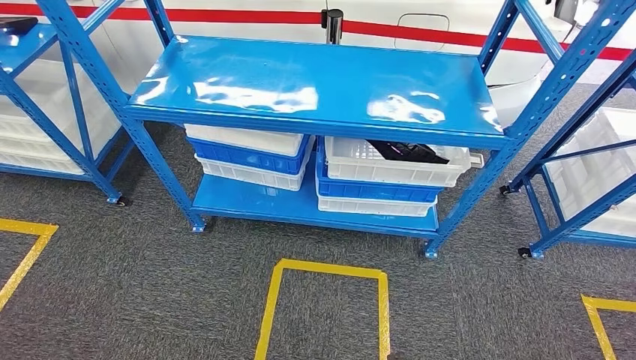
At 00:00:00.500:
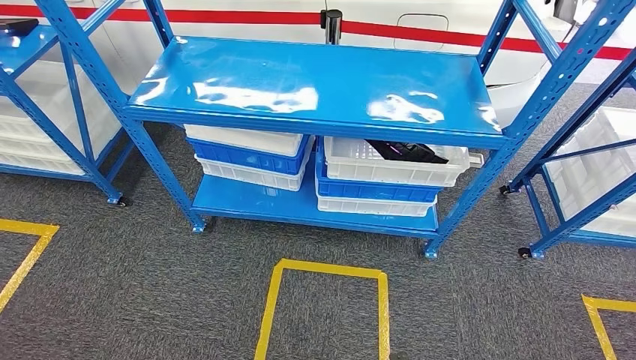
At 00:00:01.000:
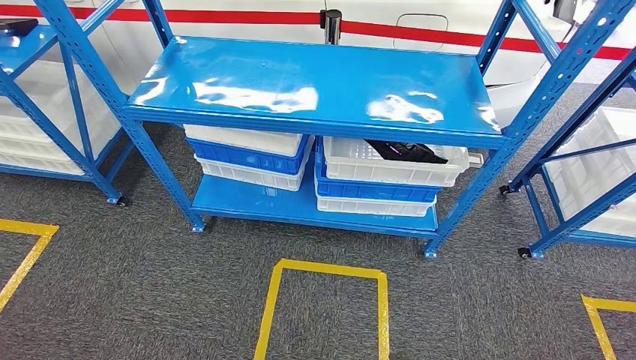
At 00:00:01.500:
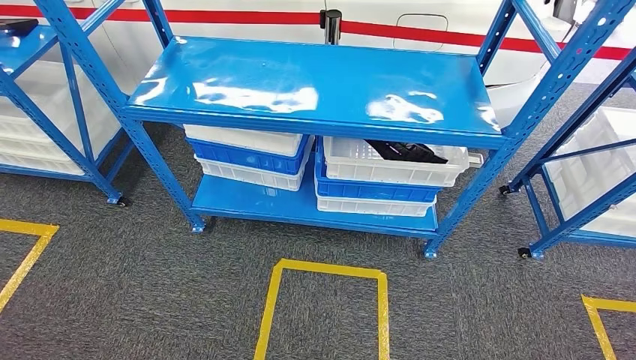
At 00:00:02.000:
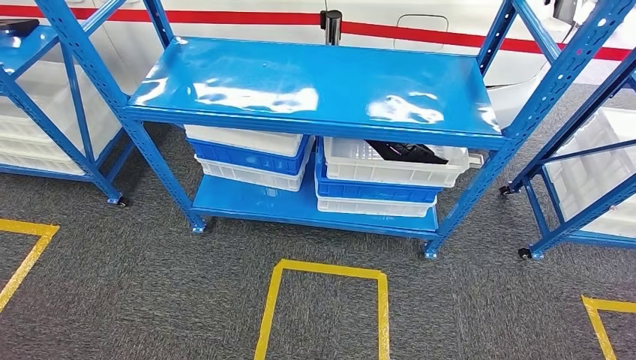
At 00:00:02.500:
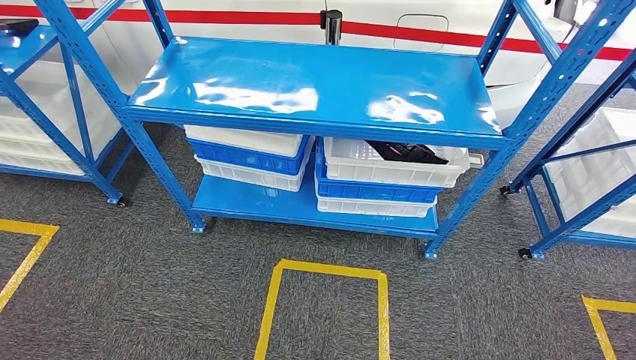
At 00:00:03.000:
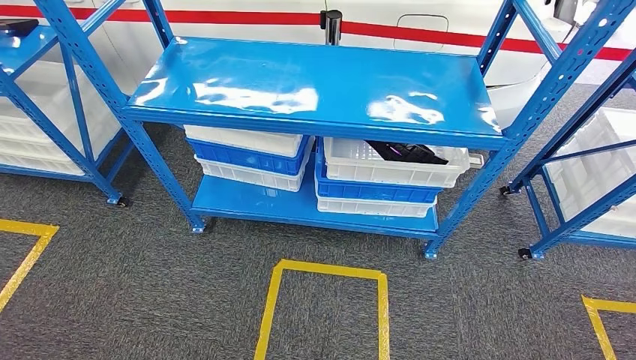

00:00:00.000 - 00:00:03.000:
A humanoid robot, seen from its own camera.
Step, 00:00:00.000 - 00:00:03.000: Move to the initial position of the shelf.
00:00:00.000 - 00:00:01.500: There are only small adjustments of the hands.
00:00:01.500 - 00:00:03.000: The right hand goes approximately 5 cm backward.

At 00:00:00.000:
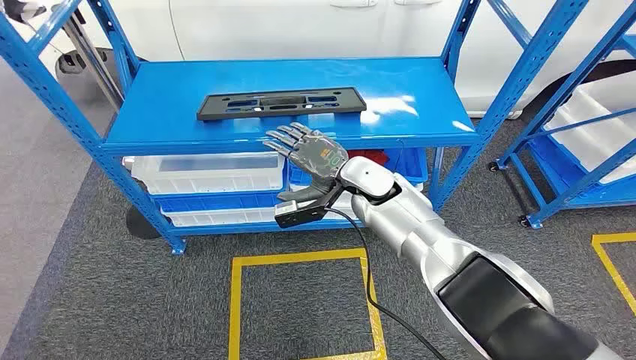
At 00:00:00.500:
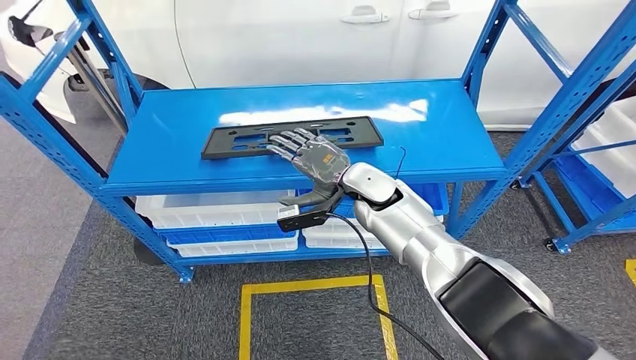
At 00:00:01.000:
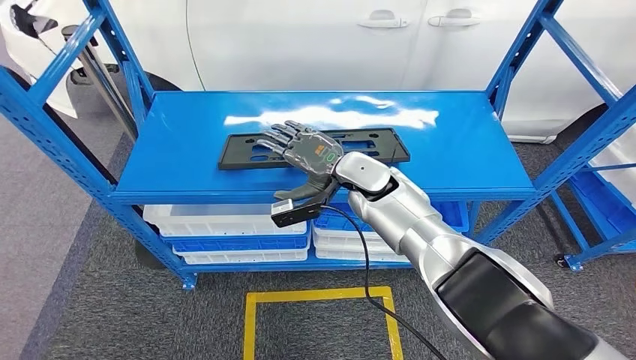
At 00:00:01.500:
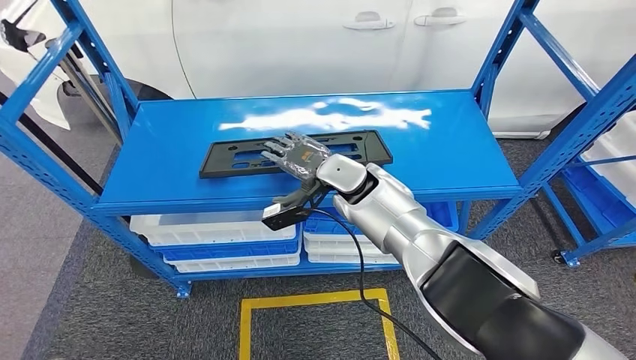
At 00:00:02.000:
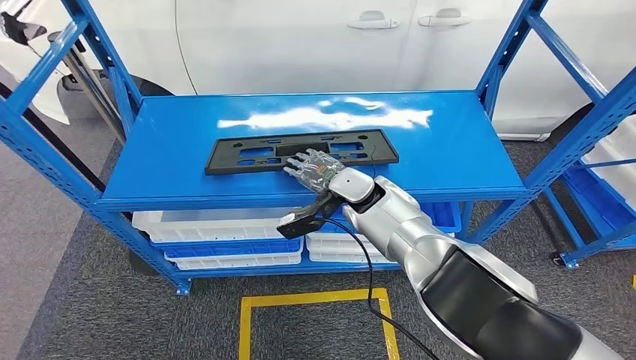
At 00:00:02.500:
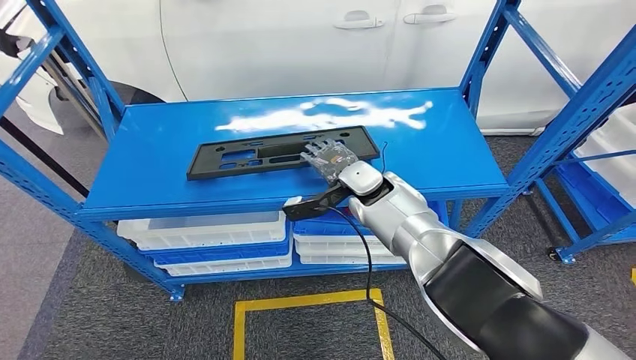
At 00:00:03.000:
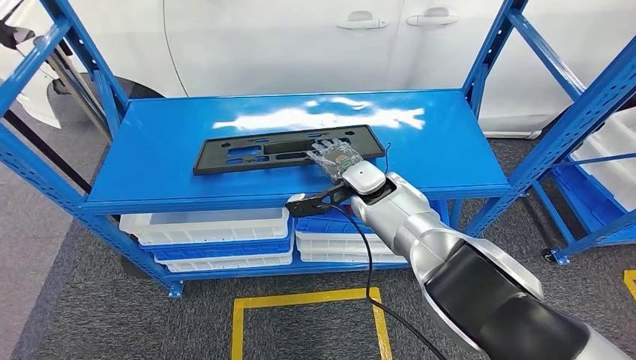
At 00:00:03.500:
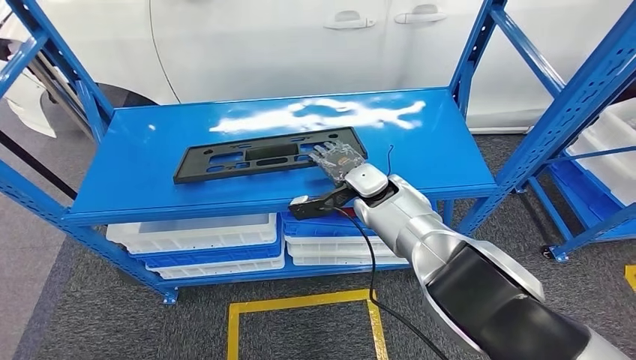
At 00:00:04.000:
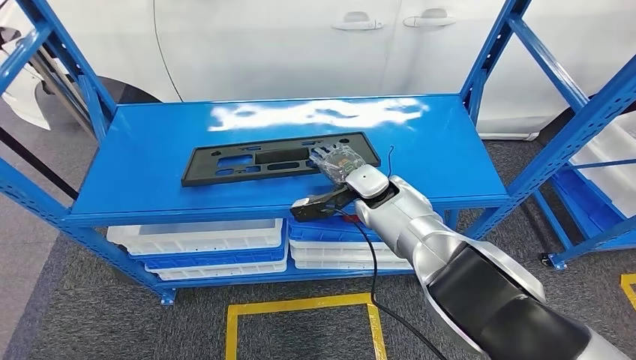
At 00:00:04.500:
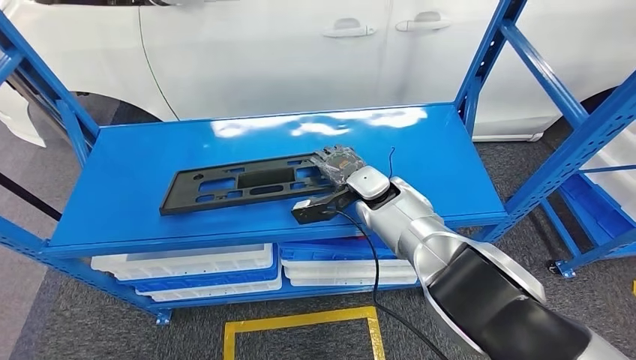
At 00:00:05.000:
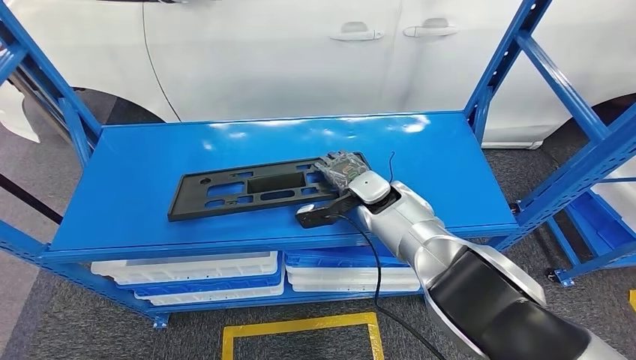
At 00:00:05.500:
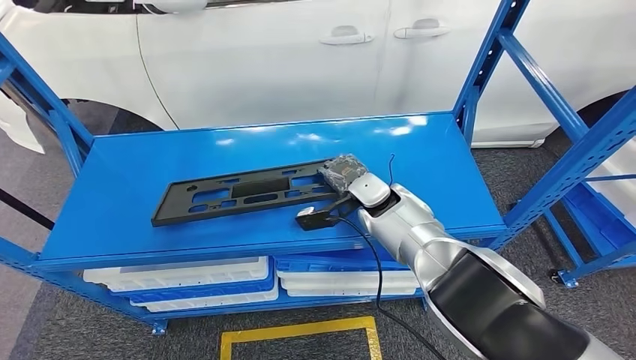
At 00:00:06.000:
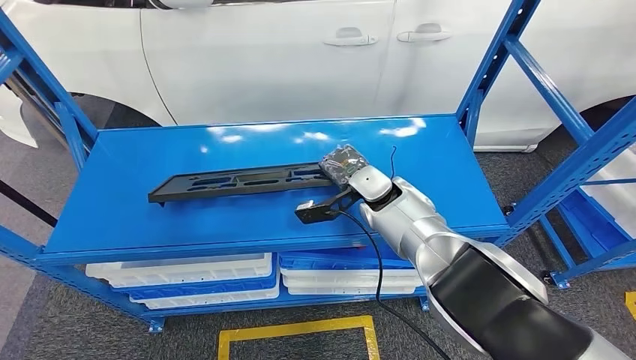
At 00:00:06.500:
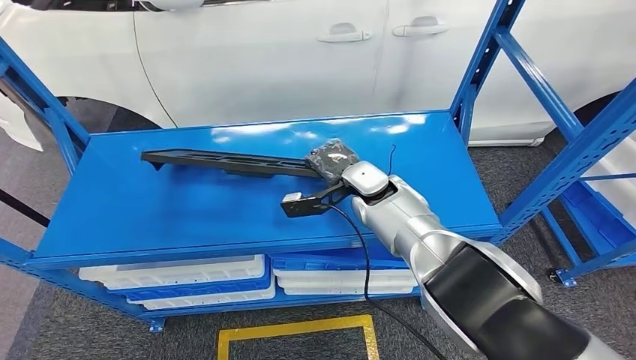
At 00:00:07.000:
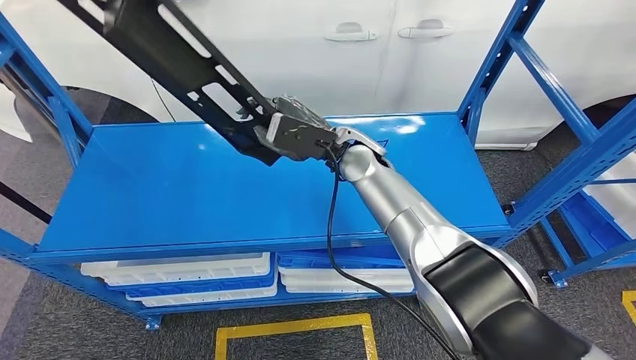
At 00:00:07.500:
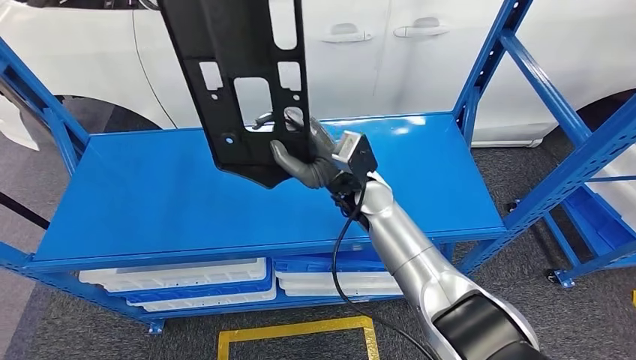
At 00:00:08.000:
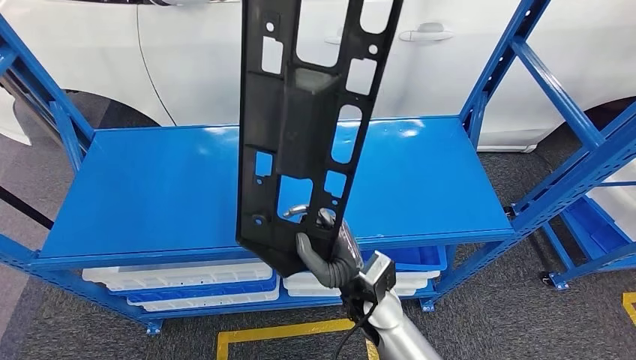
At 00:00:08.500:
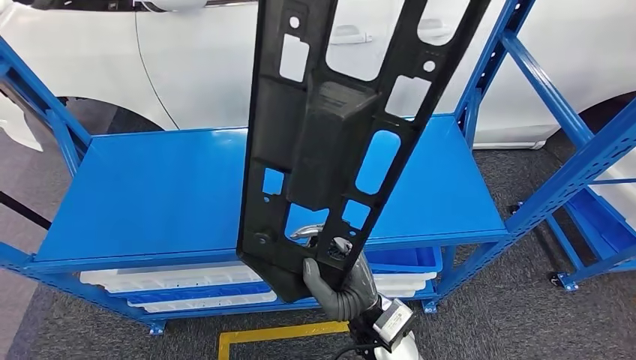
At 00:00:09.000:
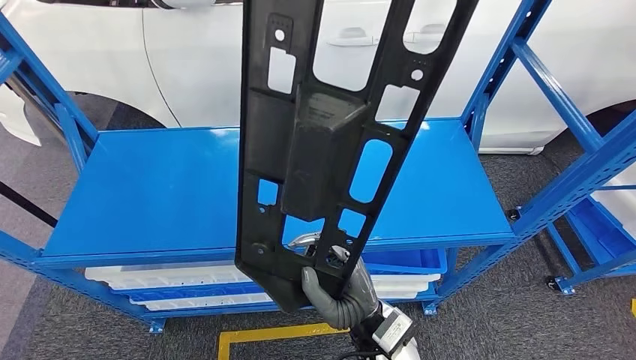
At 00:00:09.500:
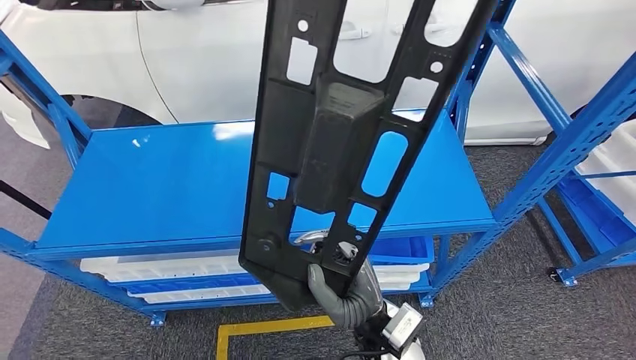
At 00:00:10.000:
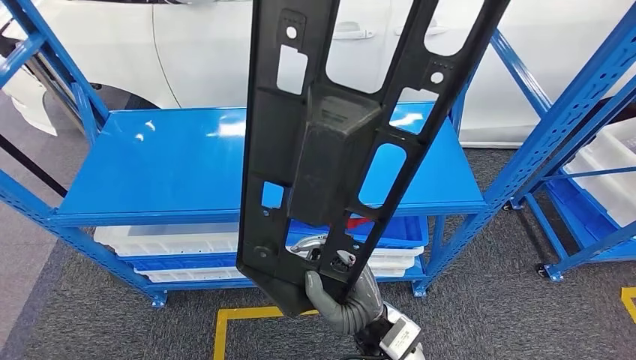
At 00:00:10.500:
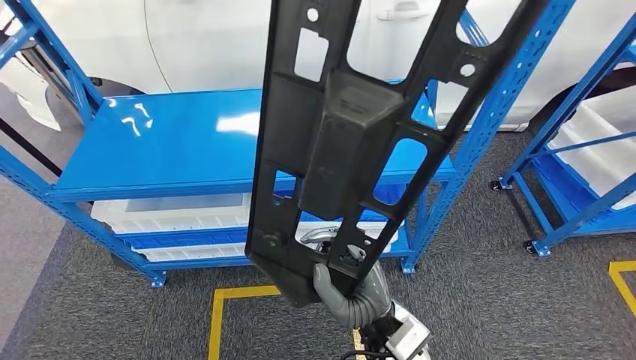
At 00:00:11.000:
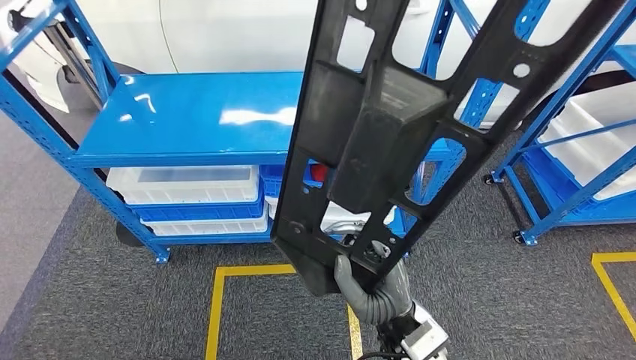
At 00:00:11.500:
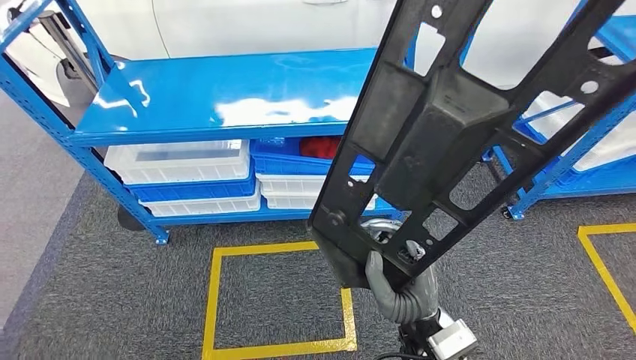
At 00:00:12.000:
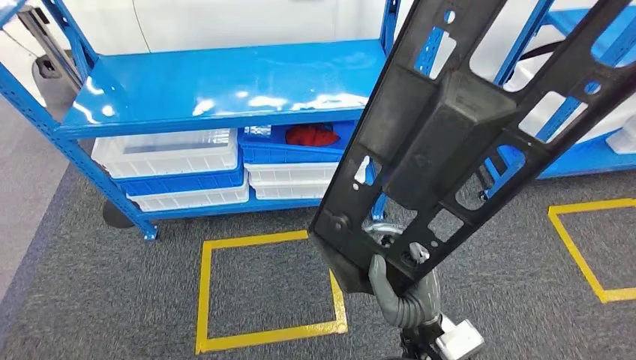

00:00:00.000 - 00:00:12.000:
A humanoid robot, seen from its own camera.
Step, 00:00:00.000 - 00:00:07.500: Pick up the large material from the shelf.

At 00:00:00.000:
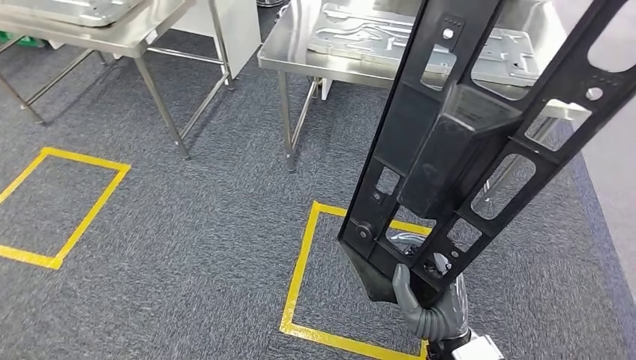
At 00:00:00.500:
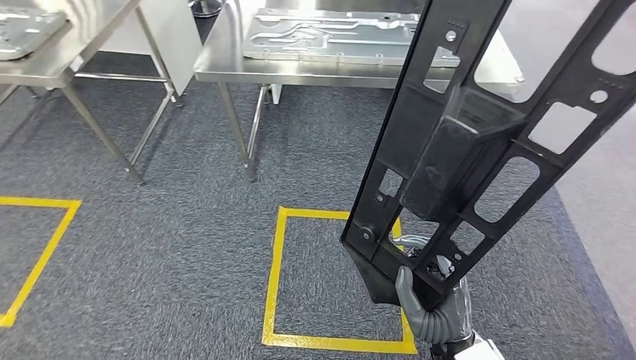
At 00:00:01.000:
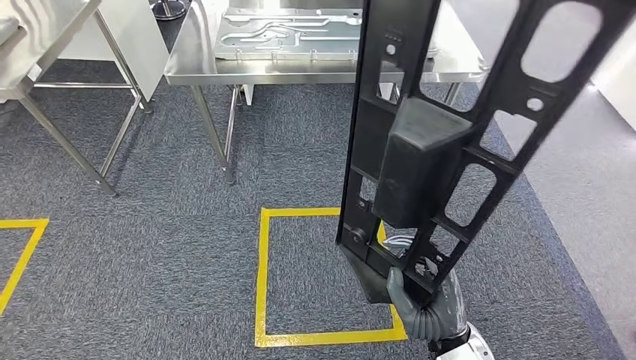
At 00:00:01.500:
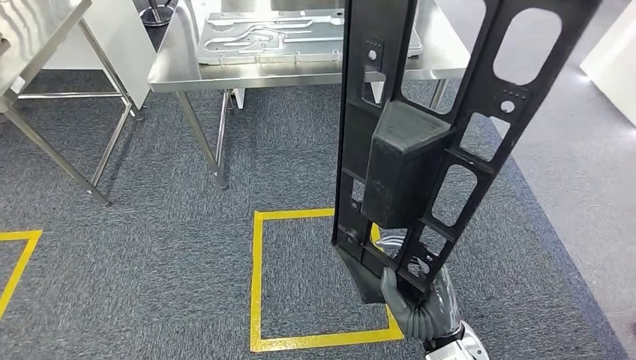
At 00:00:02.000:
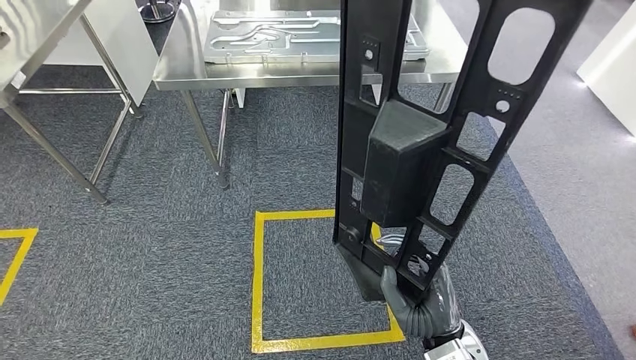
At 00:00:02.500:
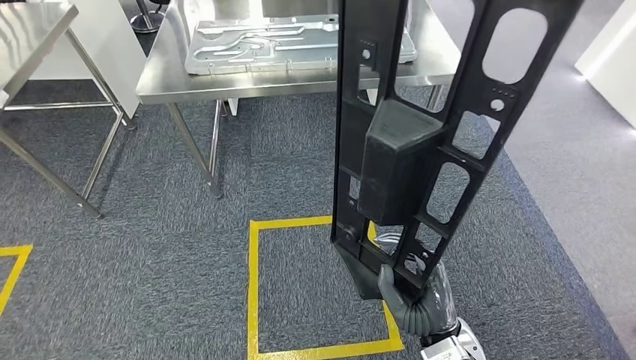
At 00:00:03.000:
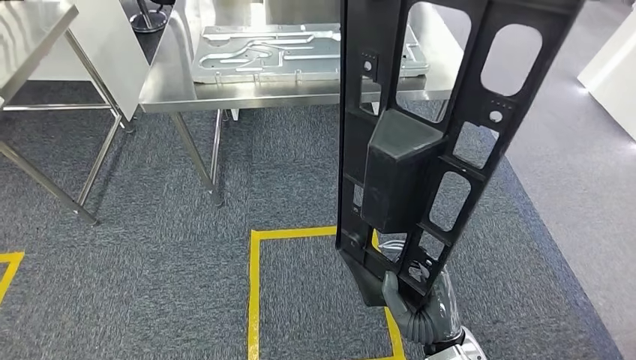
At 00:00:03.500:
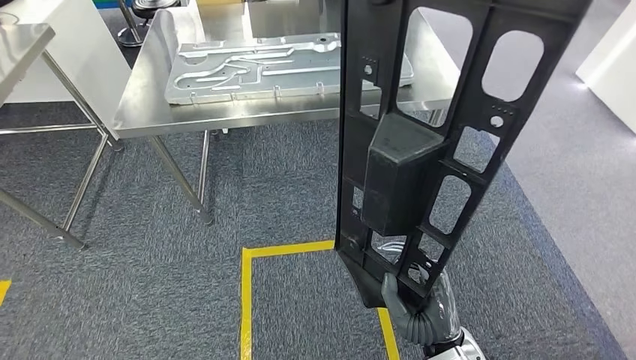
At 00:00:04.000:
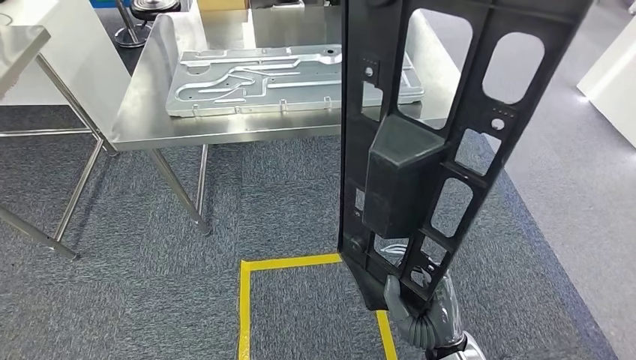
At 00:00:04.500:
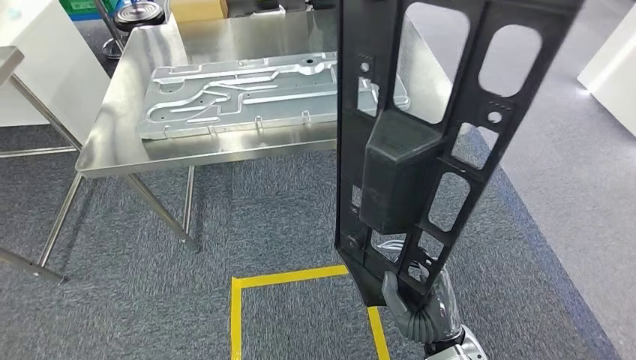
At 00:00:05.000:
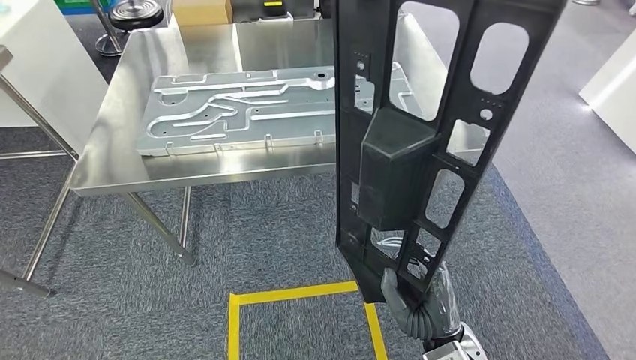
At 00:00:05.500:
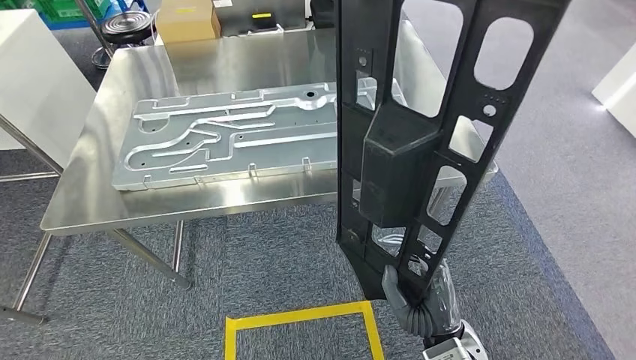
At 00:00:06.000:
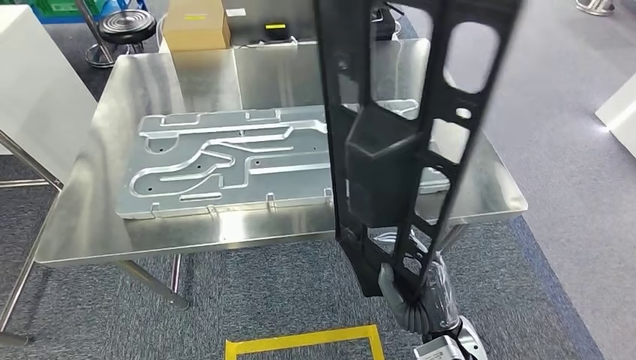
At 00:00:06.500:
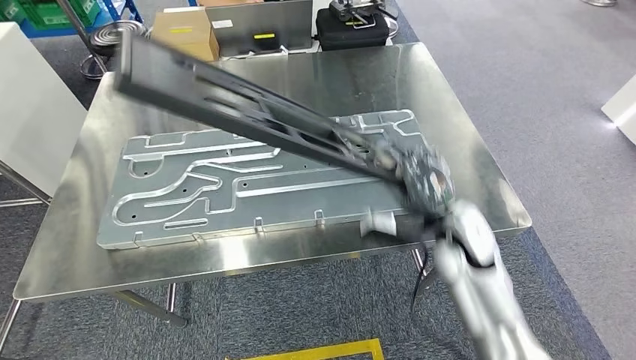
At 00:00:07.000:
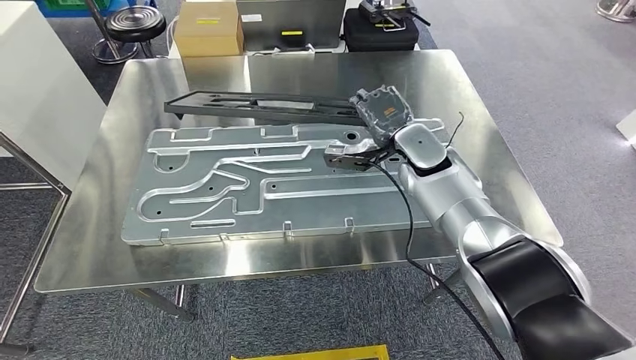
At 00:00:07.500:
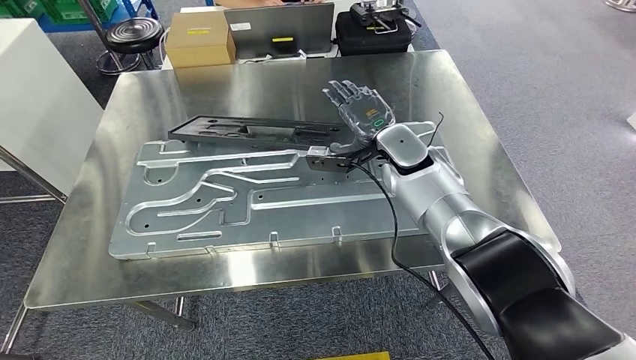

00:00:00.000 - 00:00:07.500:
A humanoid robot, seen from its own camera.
Step, 00:00:00.000 - 00:00:06.000: Move the large material to the front of the workbench.
